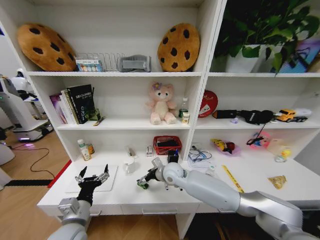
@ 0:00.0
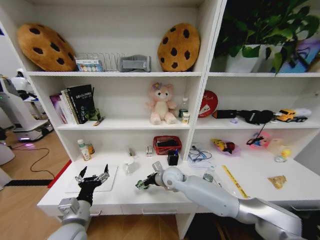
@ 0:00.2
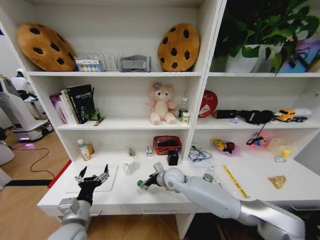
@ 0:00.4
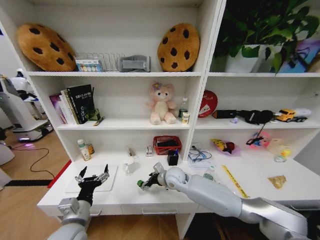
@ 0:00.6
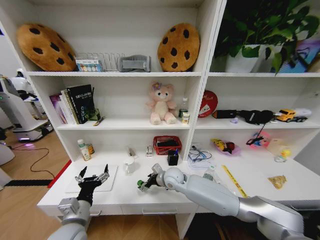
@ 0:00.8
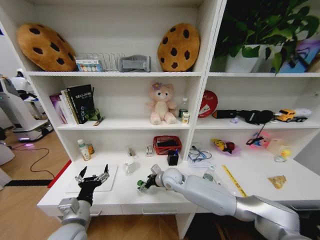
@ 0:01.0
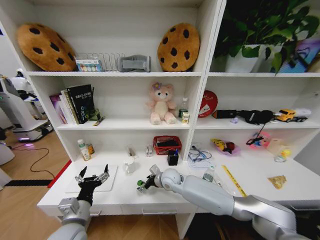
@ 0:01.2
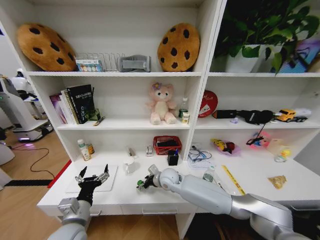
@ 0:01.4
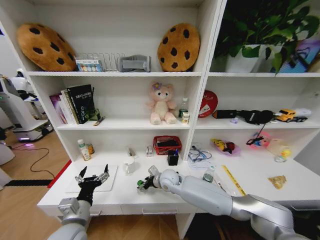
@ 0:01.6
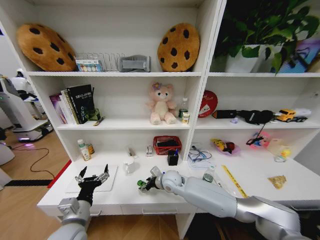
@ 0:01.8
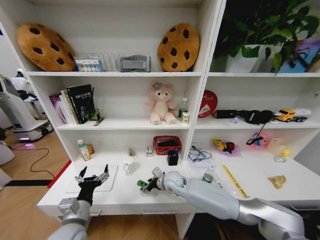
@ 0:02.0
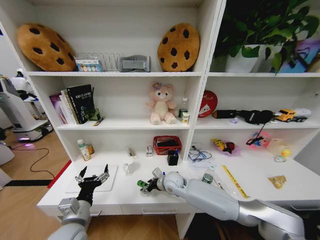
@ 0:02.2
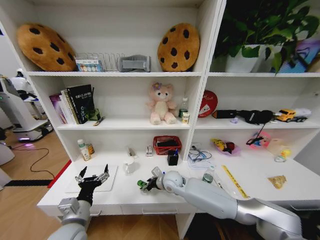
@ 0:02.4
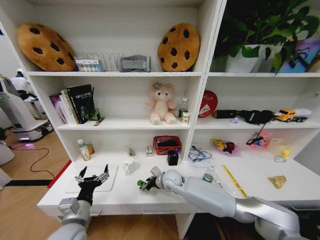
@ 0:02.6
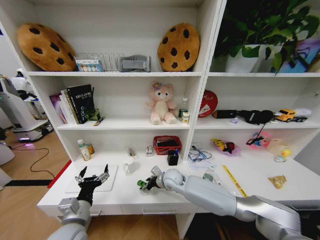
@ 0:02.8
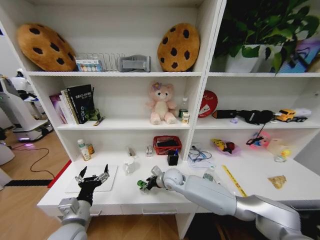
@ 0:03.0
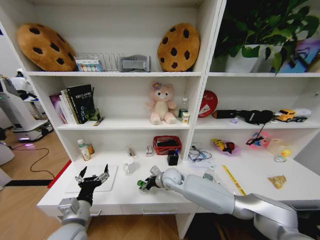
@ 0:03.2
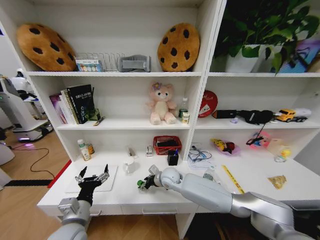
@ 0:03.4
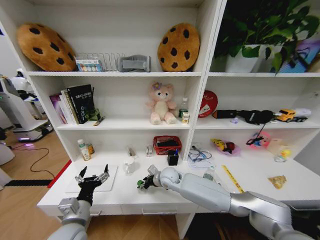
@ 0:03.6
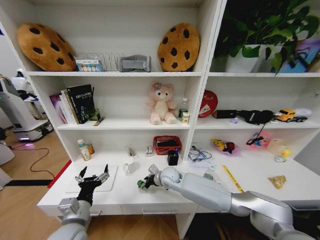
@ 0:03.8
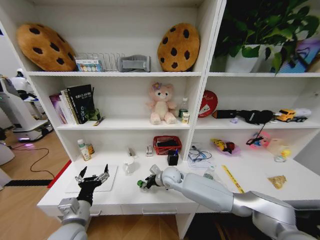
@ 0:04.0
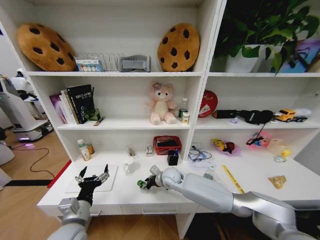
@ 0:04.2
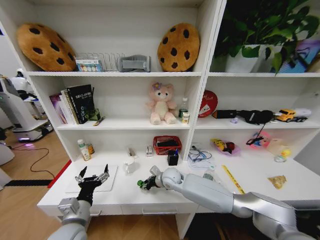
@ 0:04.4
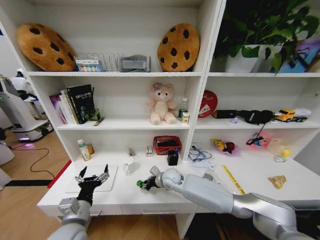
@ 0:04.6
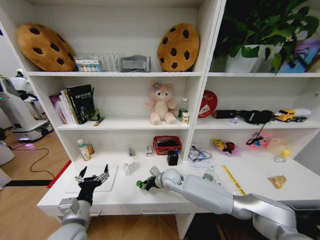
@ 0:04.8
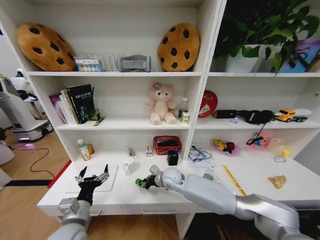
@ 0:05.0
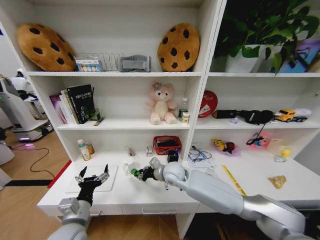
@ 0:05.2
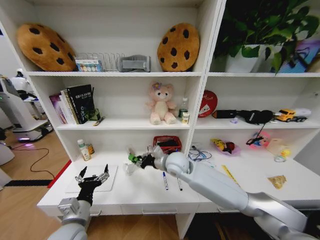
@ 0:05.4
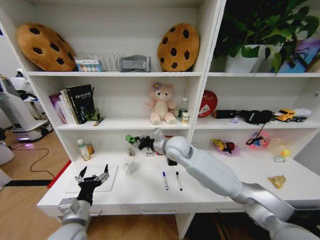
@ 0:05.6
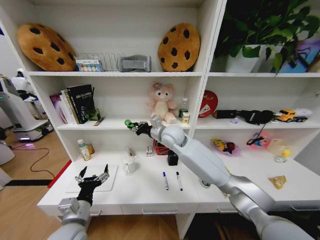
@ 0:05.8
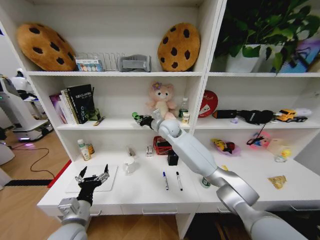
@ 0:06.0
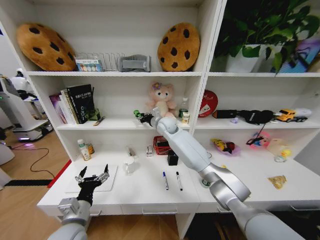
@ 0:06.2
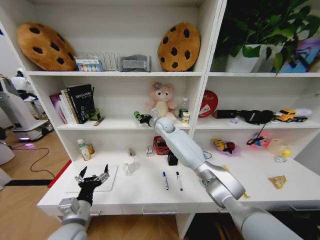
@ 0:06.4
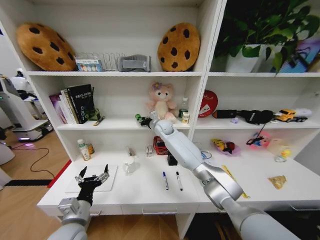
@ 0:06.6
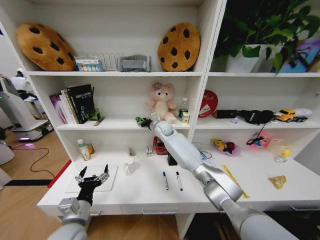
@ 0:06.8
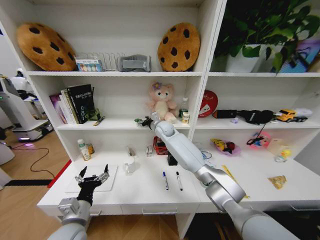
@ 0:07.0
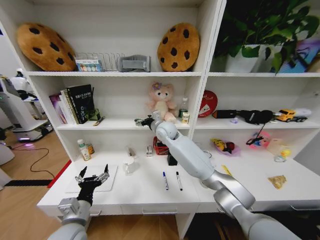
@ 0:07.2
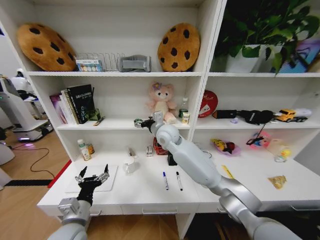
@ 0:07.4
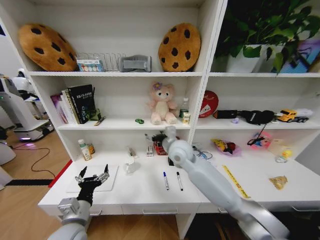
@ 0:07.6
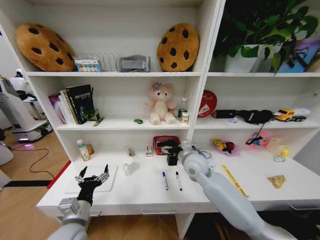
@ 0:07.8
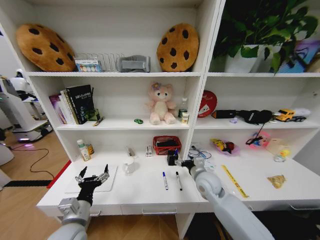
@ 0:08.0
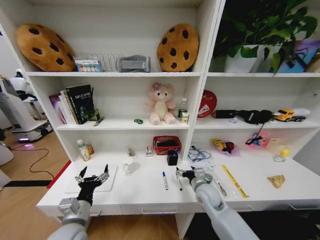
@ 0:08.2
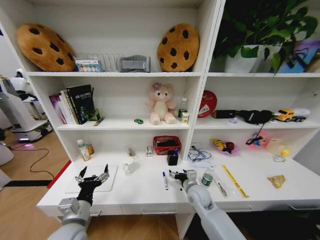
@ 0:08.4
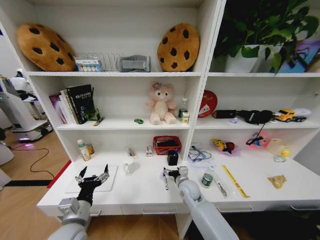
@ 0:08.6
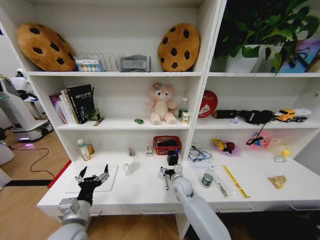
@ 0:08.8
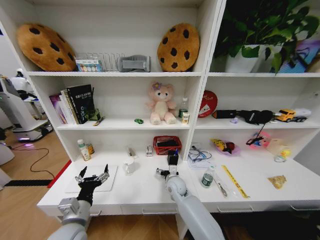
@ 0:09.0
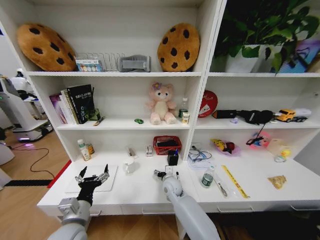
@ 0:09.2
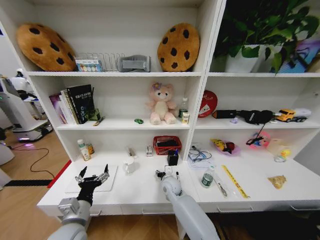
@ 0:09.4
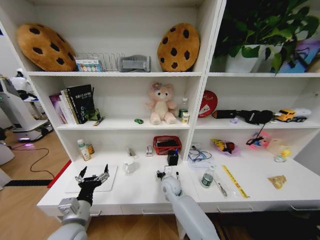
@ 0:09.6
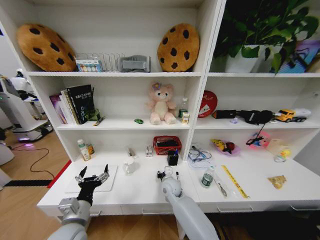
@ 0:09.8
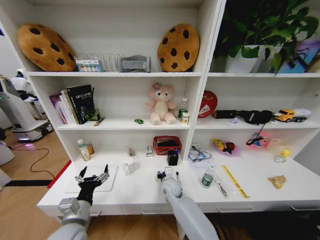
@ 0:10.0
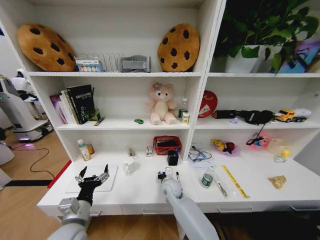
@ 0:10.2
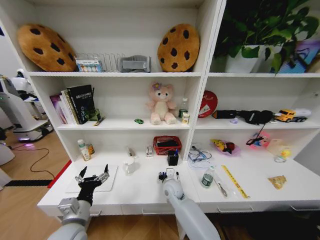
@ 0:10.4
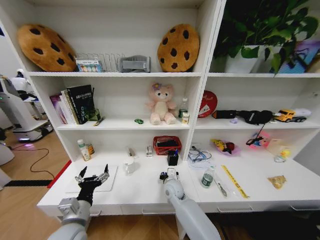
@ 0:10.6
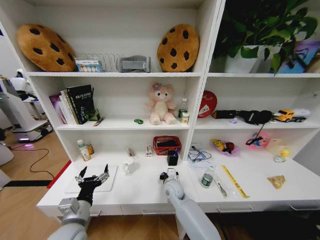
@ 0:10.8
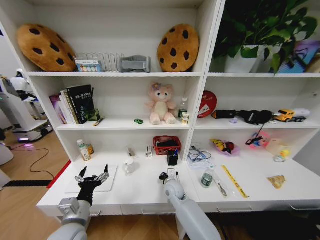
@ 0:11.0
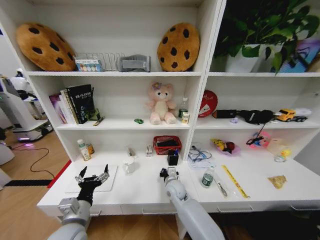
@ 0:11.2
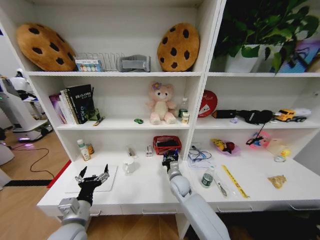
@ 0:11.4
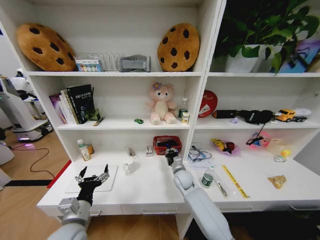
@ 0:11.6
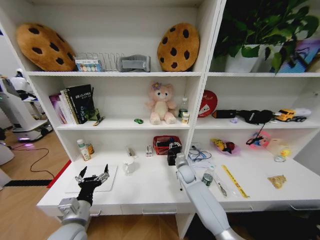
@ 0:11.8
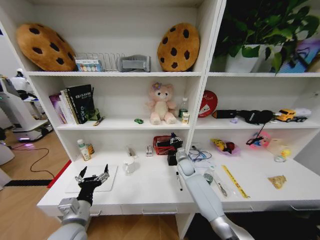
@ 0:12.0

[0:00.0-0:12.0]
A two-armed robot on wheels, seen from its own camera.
Task of the whole recording: Organize the objects on the table.
0:00.0 to 0:01.6: The right gripper shifts by some 5 cm.
0:01.6 to 0:04.4: The grippers move only a little.
0:04.4 to 0:06.0: The right gripper moves upward and forward, about 25 cm.
0:06.0 to 0:07.6: The right gripper shifts some 10 cm backward, and opens up.
0:07.6 to 0:09.0: The right gripper heads downward, covering some 25 cm.
0:09.0 to 0:10.4: The right gripper closes its fingers.
0:10.4 to 0:12.0: The right gripper moves forward and to the right, approximately 15 cm.

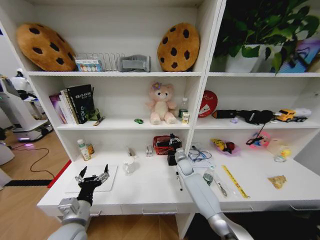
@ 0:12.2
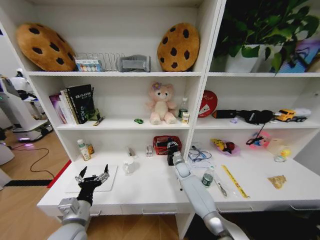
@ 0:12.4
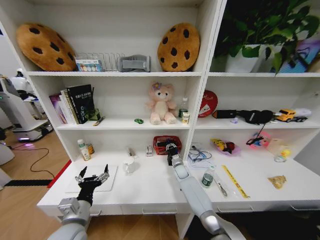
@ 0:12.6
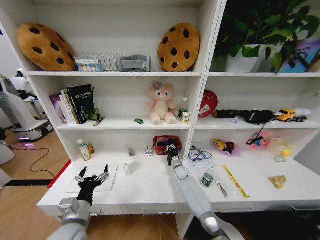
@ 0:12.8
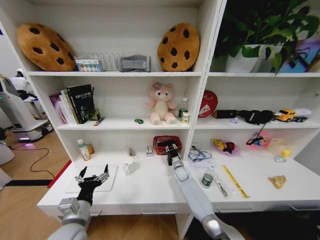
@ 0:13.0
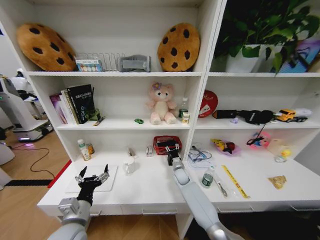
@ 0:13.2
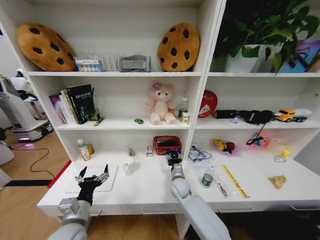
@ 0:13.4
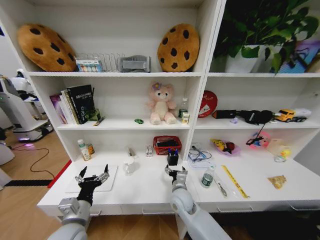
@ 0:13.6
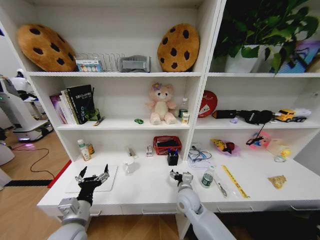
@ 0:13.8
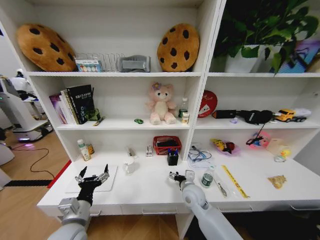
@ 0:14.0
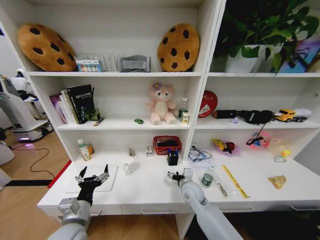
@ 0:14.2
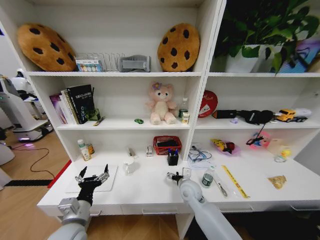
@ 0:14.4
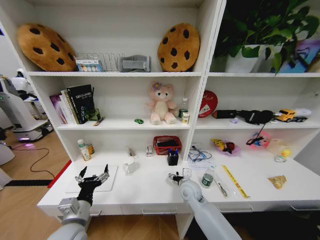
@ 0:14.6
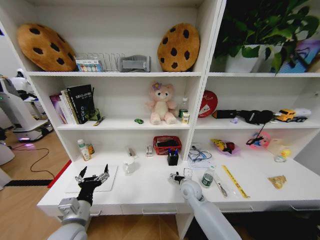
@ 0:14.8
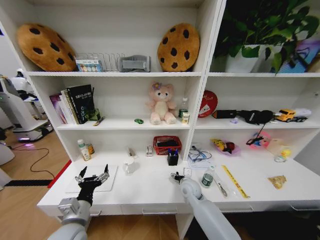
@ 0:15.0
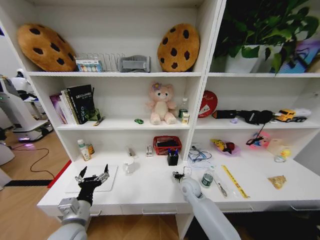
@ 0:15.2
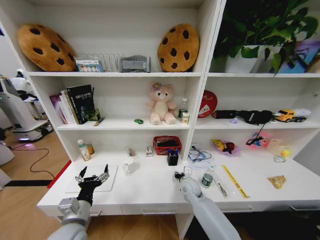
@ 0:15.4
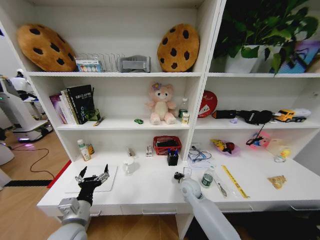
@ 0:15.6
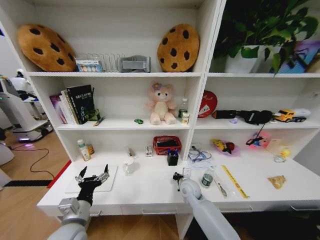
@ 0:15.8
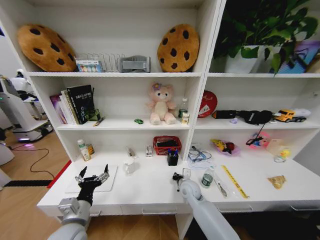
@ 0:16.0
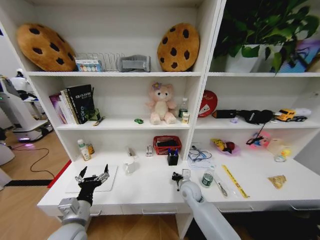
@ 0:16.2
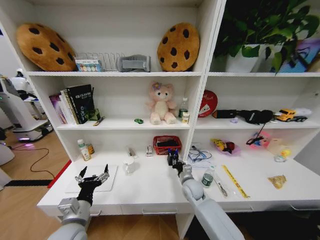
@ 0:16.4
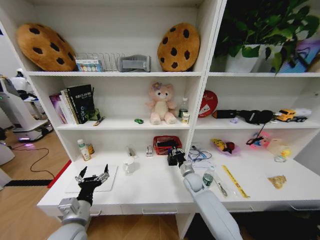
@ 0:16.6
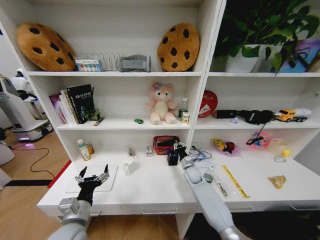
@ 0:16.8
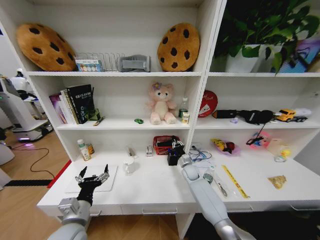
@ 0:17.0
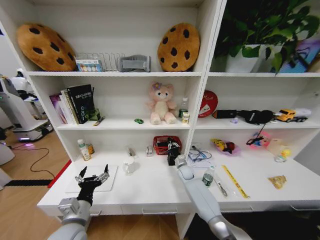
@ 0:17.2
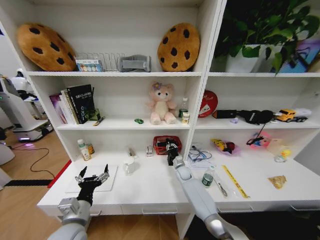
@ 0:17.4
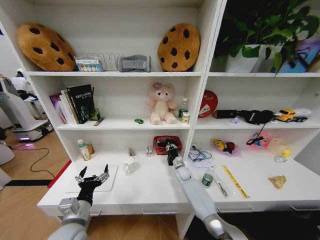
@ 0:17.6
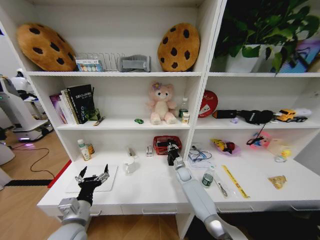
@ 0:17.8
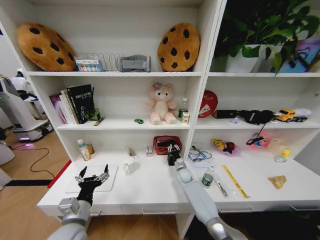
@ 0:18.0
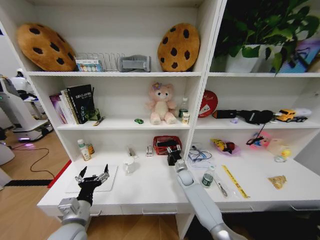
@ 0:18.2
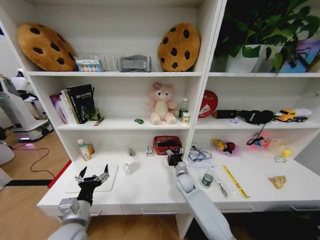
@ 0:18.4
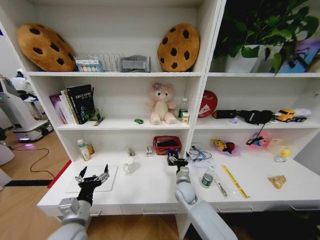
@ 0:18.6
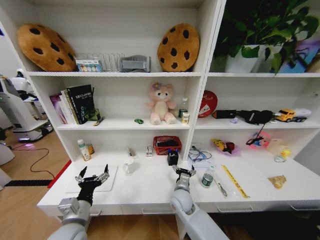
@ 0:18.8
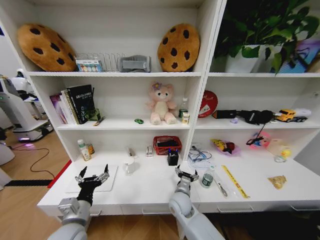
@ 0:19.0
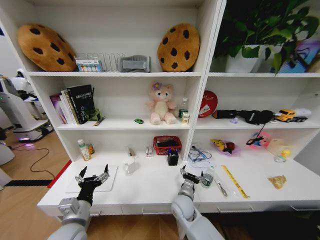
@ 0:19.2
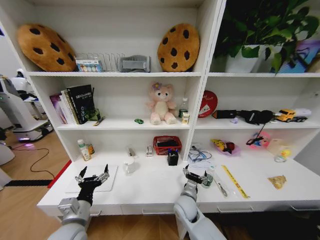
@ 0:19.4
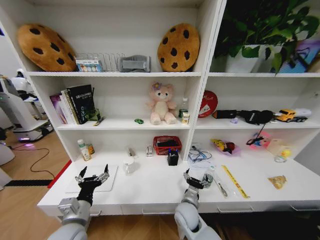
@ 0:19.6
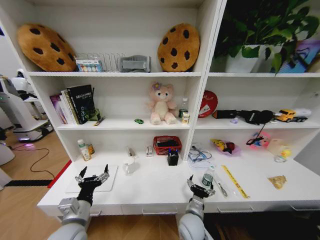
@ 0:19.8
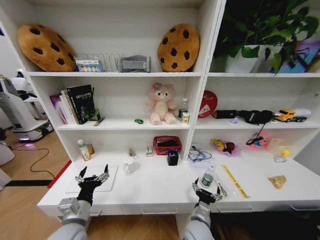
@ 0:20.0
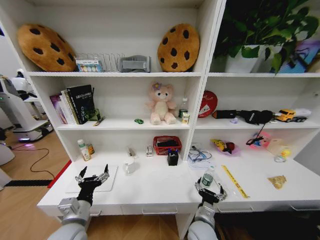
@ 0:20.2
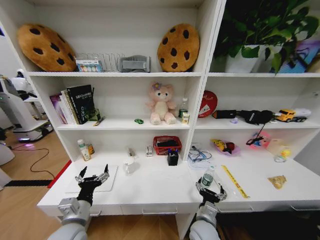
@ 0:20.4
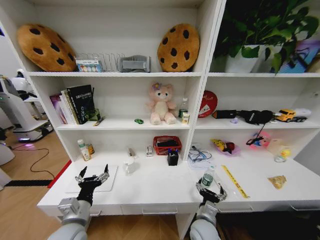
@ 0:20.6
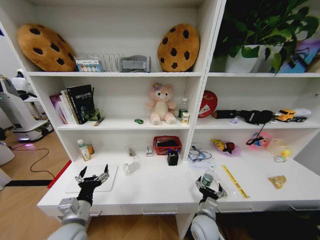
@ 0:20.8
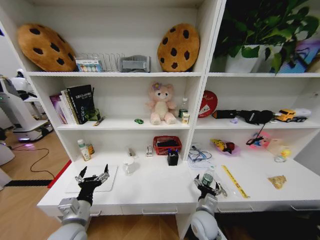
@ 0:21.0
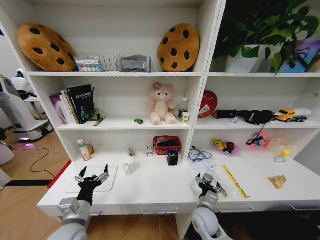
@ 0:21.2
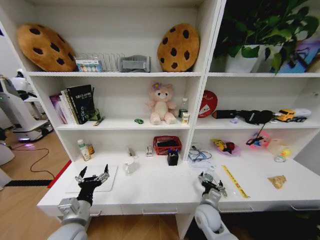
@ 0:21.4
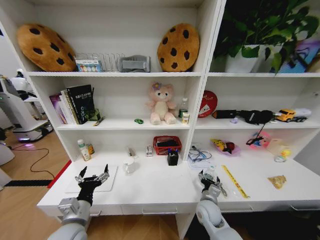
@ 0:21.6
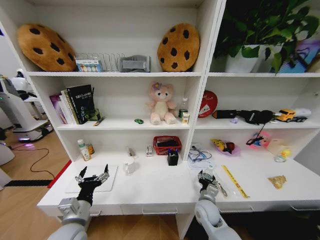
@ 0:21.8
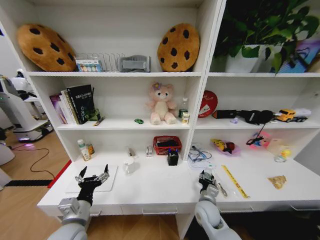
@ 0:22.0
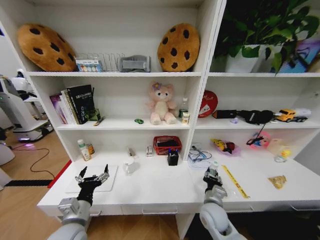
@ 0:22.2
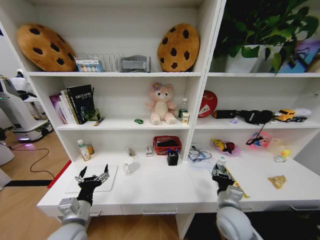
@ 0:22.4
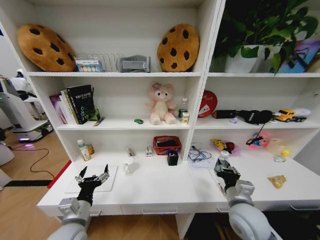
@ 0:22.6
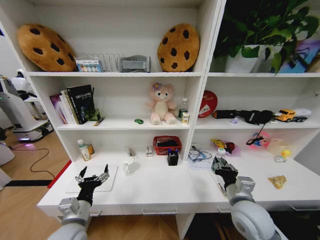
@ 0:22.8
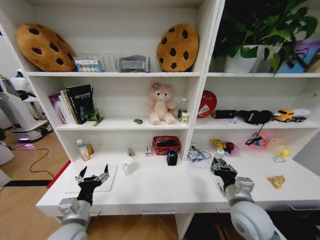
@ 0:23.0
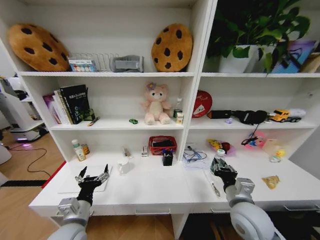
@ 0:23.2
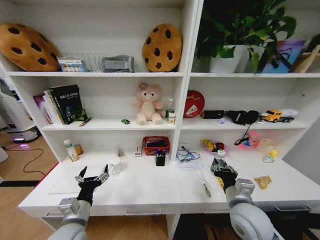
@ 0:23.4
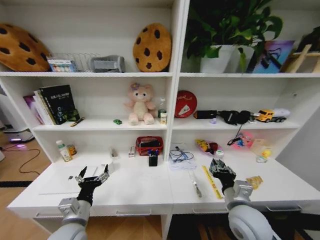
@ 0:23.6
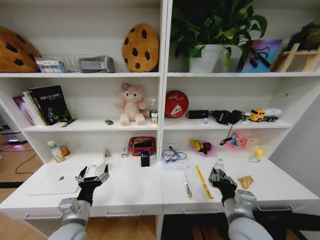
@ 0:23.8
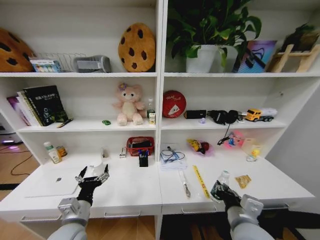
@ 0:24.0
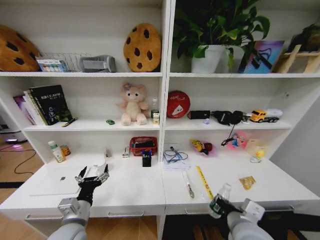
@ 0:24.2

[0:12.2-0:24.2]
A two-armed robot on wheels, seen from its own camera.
Task of the whole recording: Organize the objects on the table.
0:12.2 to 0:13.8: The right gripper goes some 20 cm backward, and opens its fingers.
0:13.8 to 0:15.2: The right gripper shifts roughly 5 cm forward.
0:15.2 to 0:16.6: The right gripper closes up.
0:16.6 to 0:18.2: The right gripper shifts about 10 cm forward and downward, and opens.
0:18.2 to 0:19.8: The right gripper goes roughly 25 cm backward, and opens up.
0:19.8 to 0:21.2: The right gripper travels to the right by about 5 cm.
0:21.2 to 0:22.6: The right gripper travels upward and to the right by roughly 15 cm, and closes up.
0:22.6 to 0:24.2: The right gripper shifts approximately 5 cm backward.
